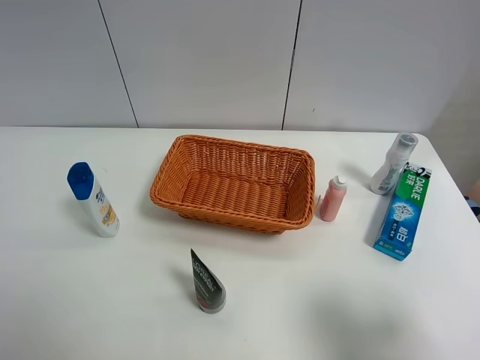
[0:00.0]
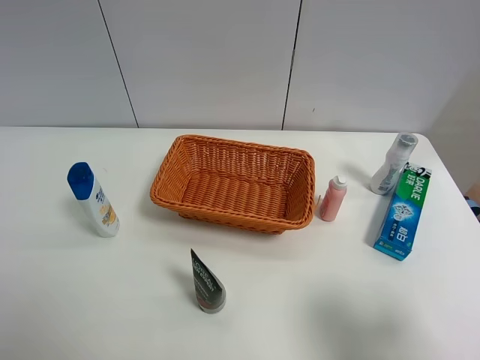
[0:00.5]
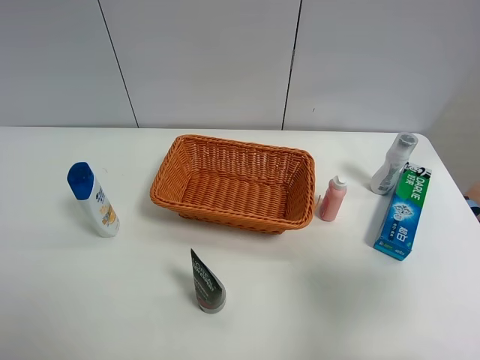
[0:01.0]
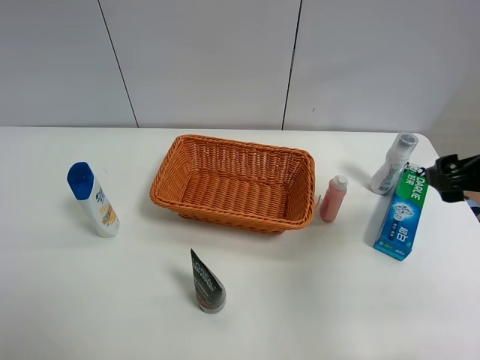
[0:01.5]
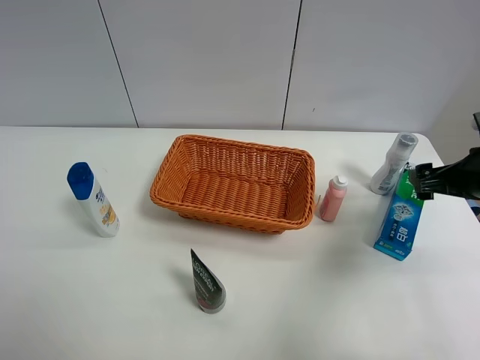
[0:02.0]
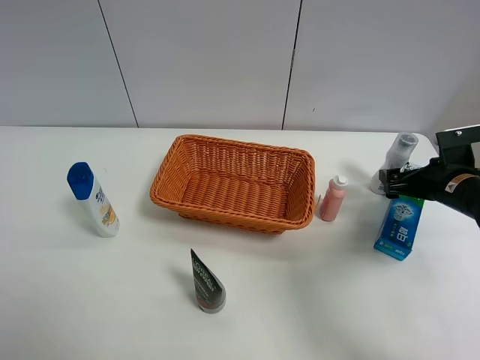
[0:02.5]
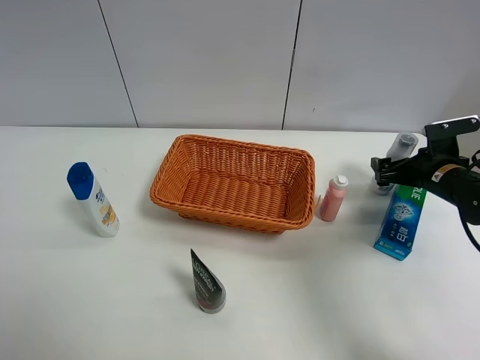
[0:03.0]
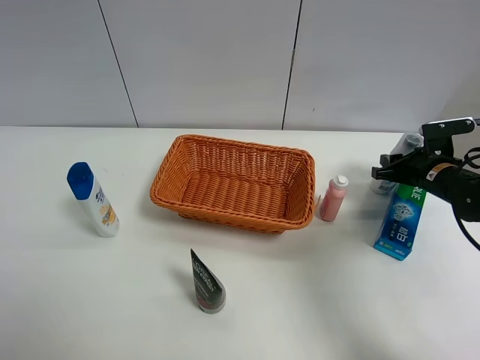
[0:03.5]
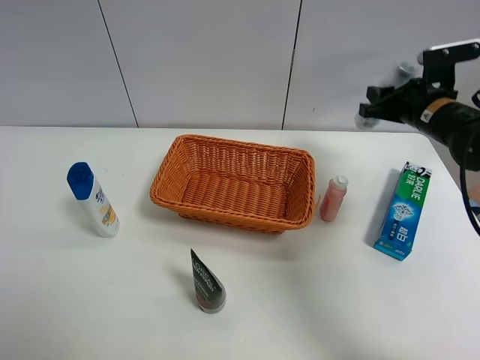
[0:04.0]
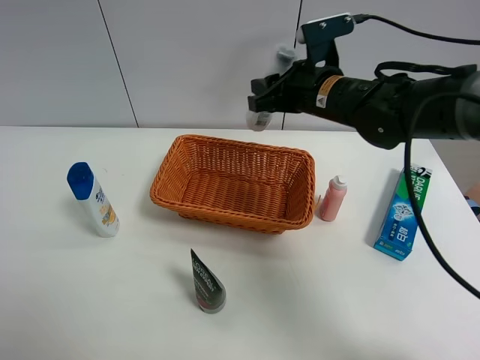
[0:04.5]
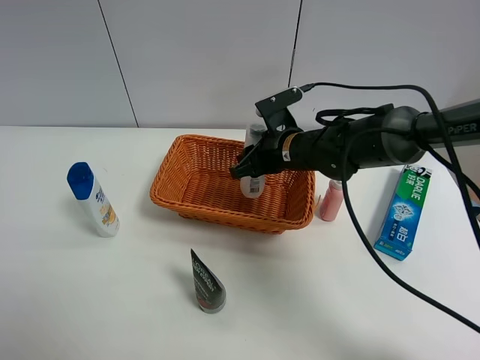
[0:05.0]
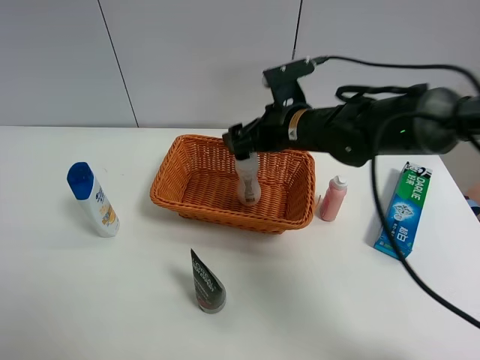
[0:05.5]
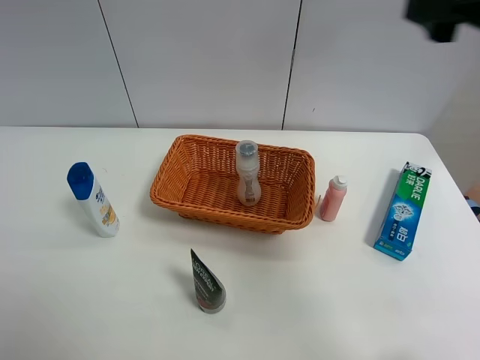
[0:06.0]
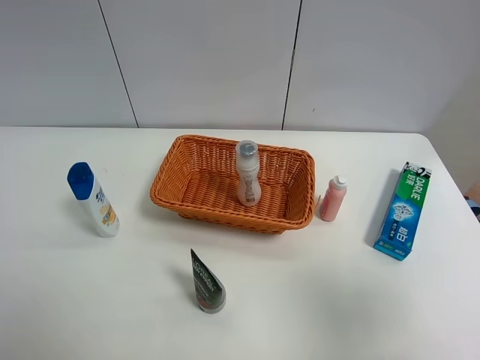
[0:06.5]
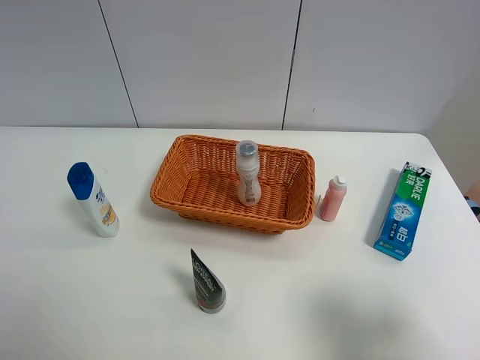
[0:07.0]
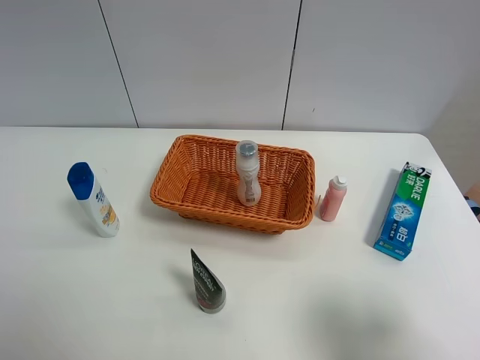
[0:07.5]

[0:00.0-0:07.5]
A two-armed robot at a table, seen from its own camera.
Task of the whole recording: Place the object closest to the toothpaste in the basket.
Step, 0:00.0 to 0:03.0: Grasp the cleaning agent with right gripper.
Step, 0:03.5 to 0:05.5: Place the cleaning agent in the basket with right gripper.
0:00.0 to 0:02.0: The right gripper moves forward, some 25 cm.
0:02.0 to 0:04.0: The right gripper travels forward by approximately 15 cm, and closes its fingers.
0:04.0 to 0:05.5: The right gripper is displaced to the left by some 20 cm, and opens its fingers.
0:05.5 to 0:07.5: The right gripper shifts roughly 40 cm backward and to the right.
